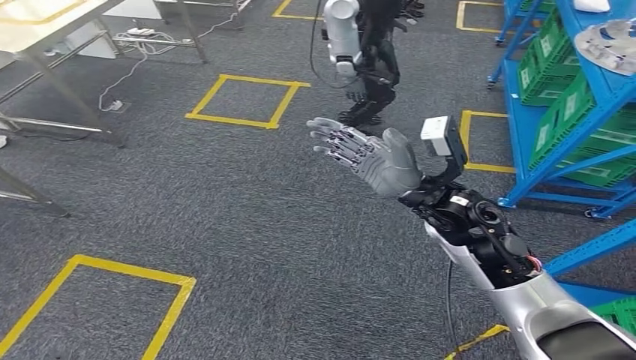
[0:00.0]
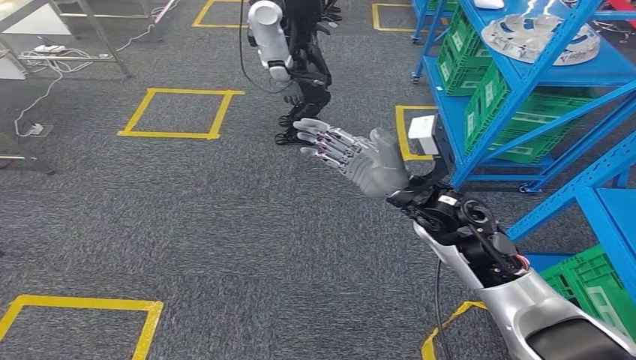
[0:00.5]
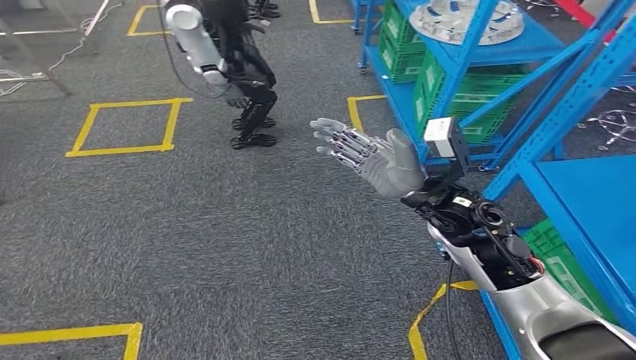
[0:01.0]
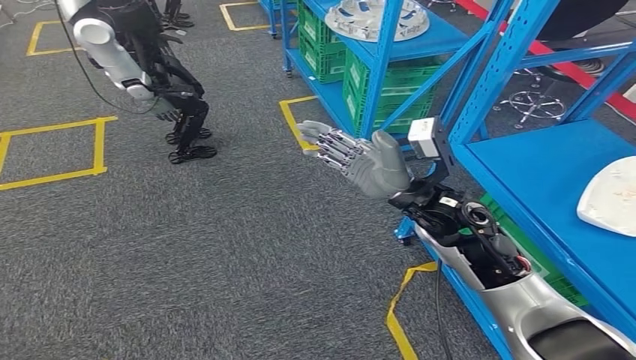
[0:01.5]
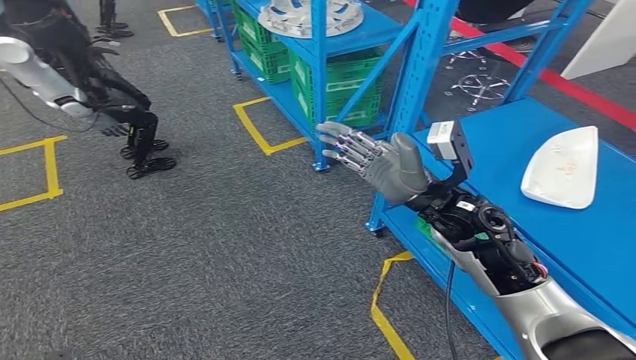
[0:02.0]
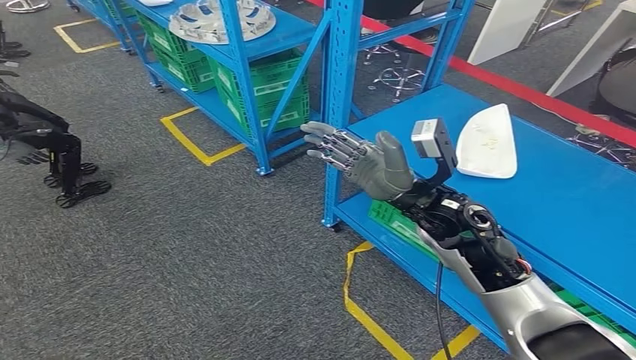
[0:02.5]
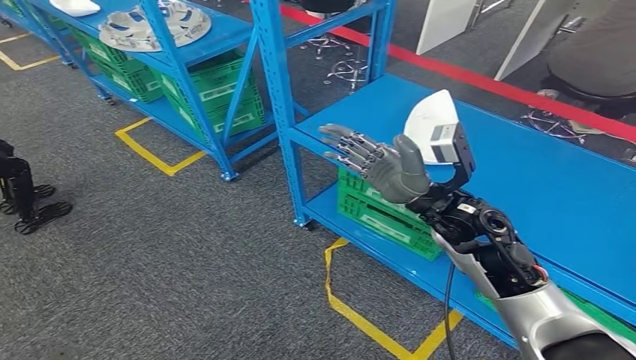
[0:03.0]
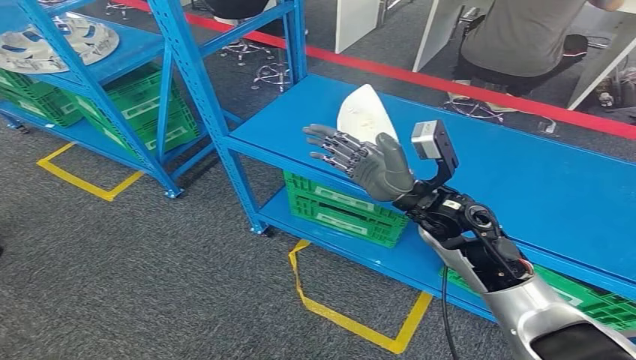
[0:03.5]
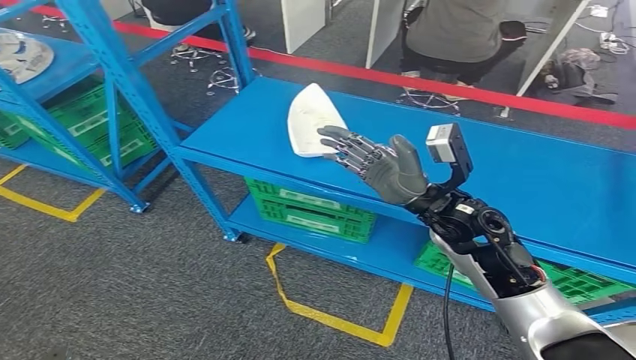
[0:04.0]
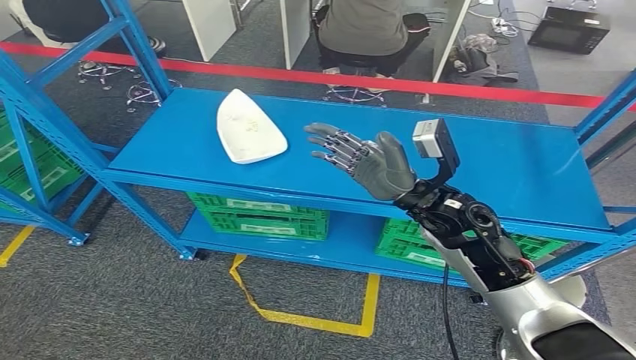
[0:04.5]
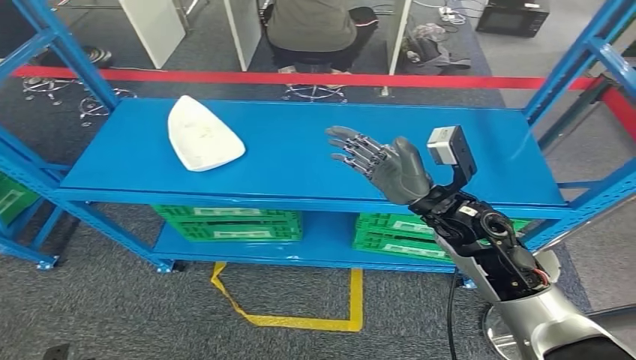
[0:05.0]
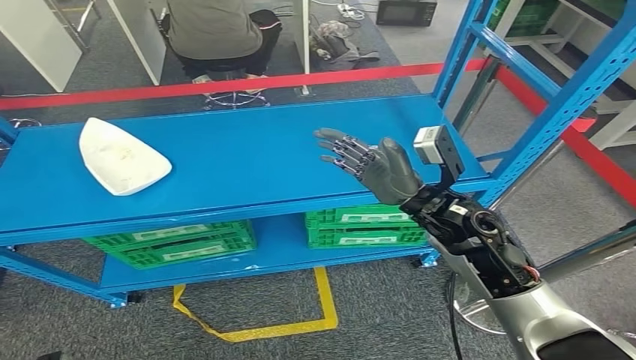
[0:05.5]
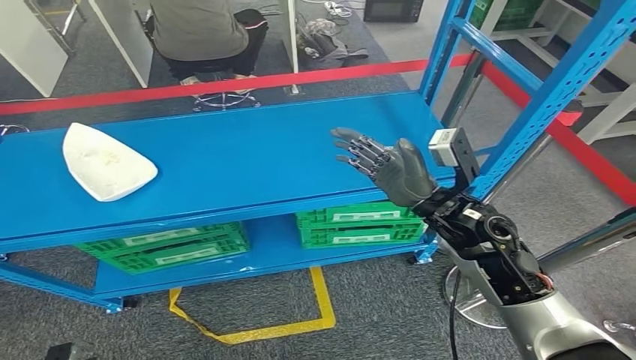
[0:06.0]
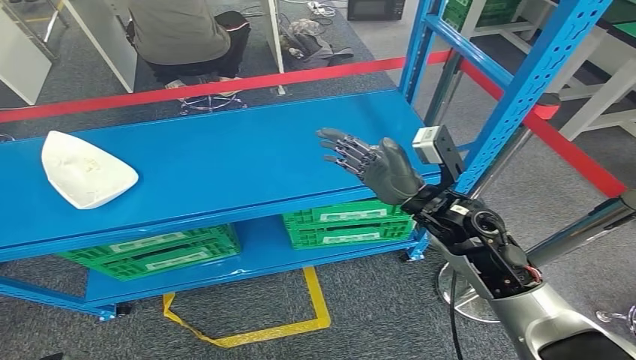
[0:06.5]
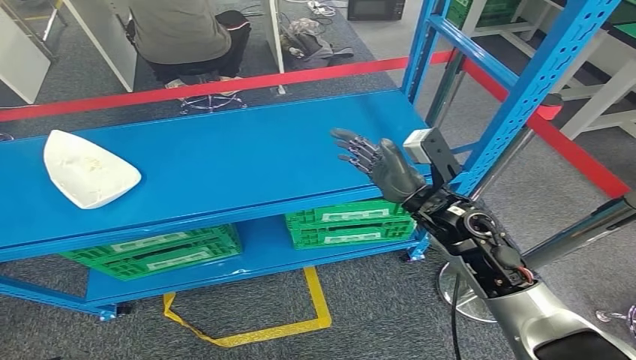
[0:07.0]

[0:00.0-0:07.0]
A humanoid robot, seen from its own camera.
Step, 0:00.0 to 0:07.0: Move to the initial position at the workbench.
